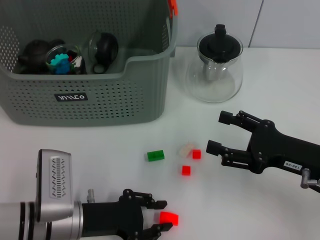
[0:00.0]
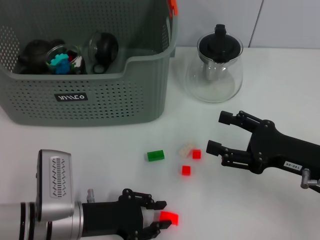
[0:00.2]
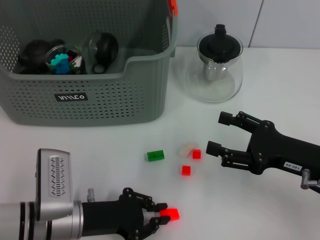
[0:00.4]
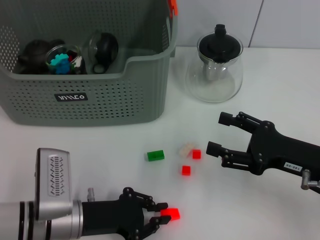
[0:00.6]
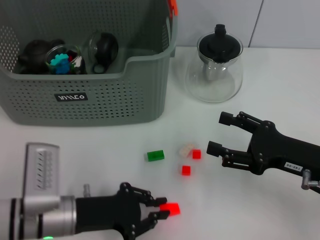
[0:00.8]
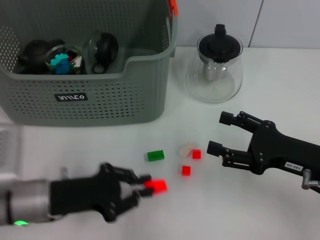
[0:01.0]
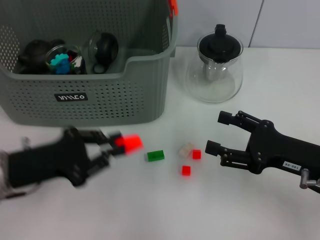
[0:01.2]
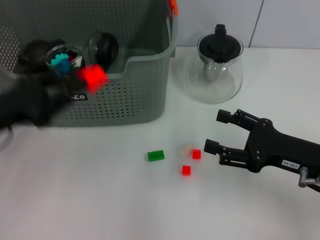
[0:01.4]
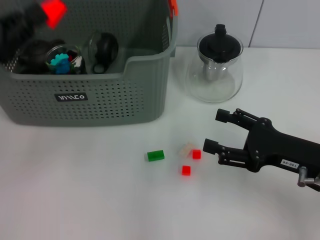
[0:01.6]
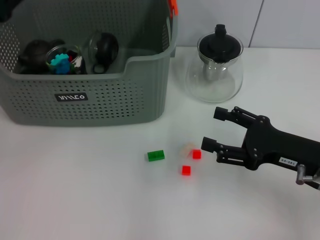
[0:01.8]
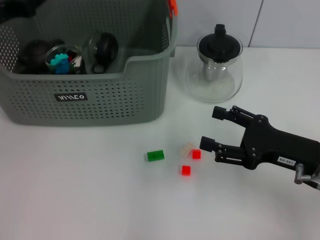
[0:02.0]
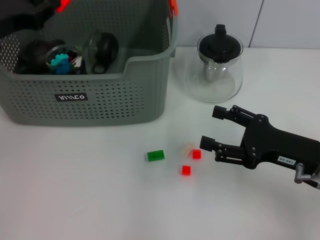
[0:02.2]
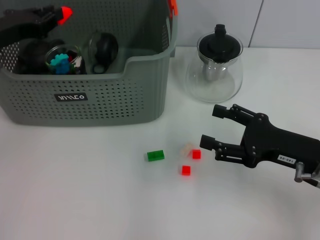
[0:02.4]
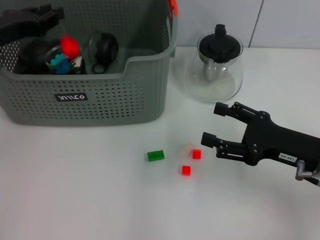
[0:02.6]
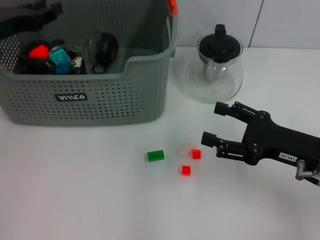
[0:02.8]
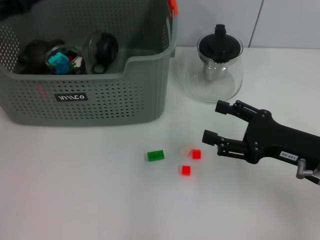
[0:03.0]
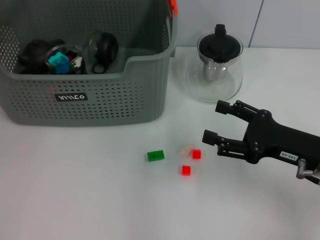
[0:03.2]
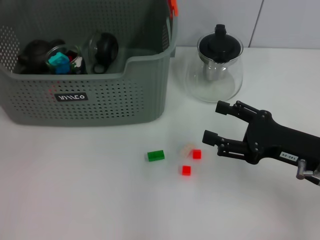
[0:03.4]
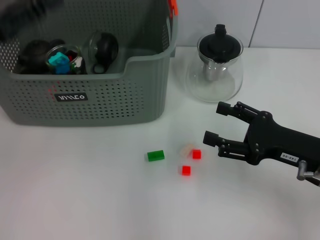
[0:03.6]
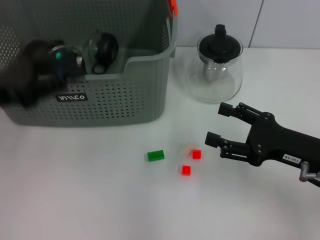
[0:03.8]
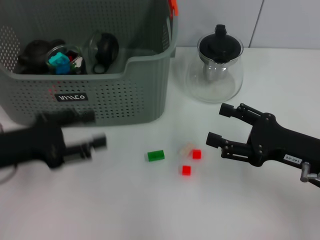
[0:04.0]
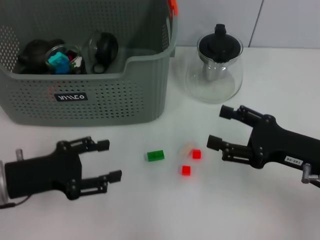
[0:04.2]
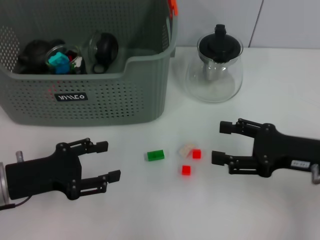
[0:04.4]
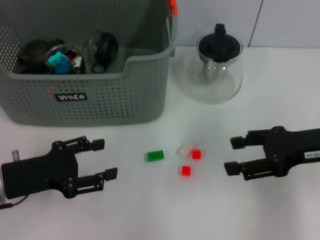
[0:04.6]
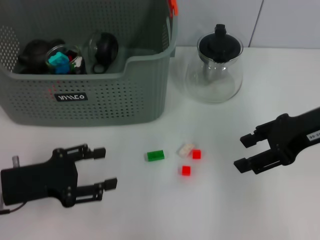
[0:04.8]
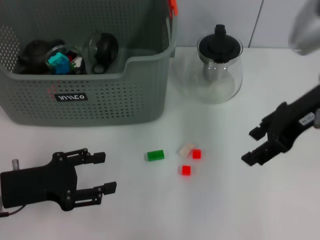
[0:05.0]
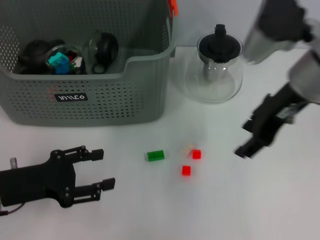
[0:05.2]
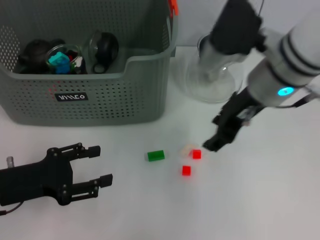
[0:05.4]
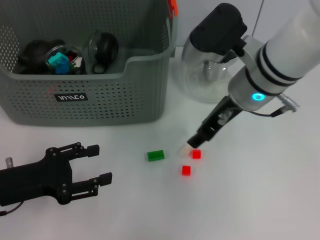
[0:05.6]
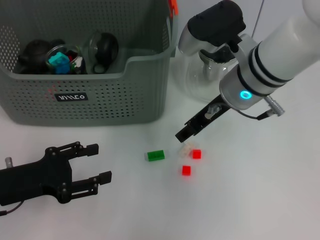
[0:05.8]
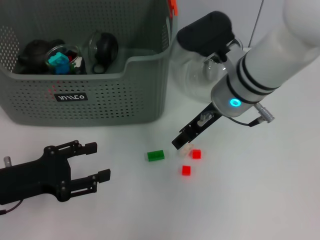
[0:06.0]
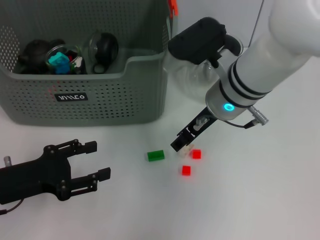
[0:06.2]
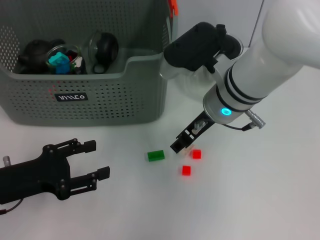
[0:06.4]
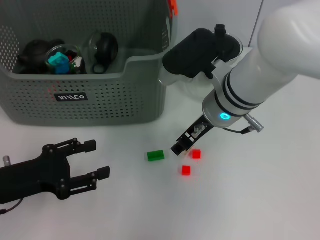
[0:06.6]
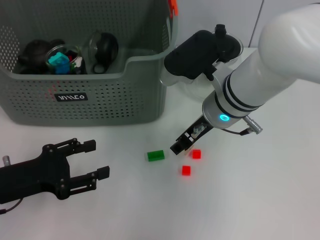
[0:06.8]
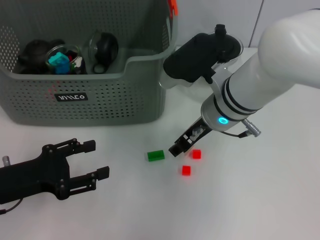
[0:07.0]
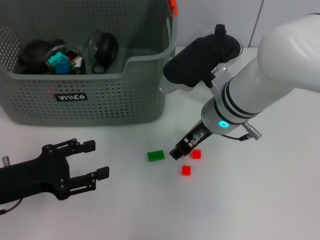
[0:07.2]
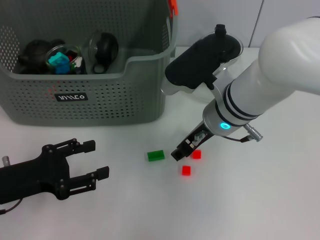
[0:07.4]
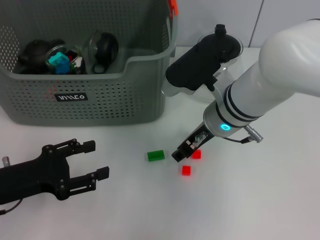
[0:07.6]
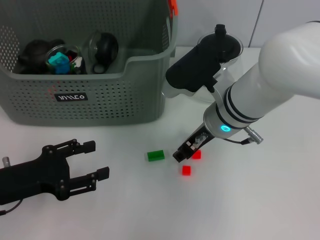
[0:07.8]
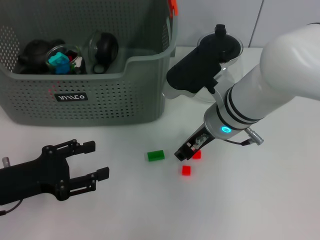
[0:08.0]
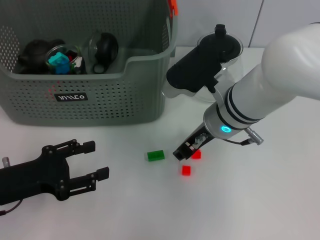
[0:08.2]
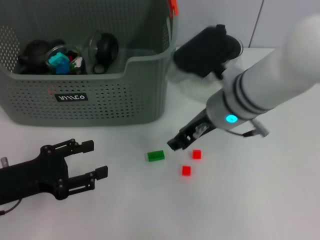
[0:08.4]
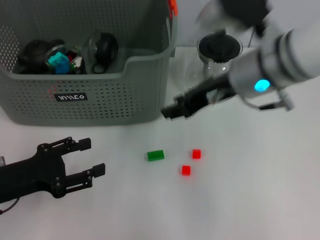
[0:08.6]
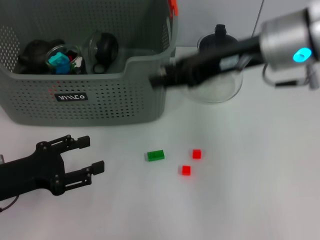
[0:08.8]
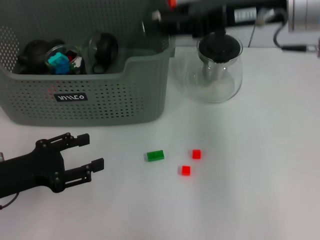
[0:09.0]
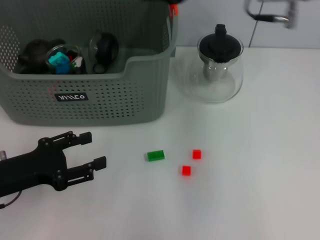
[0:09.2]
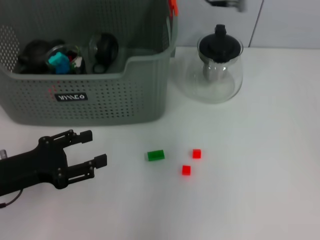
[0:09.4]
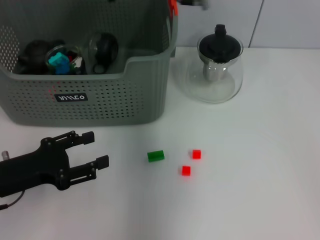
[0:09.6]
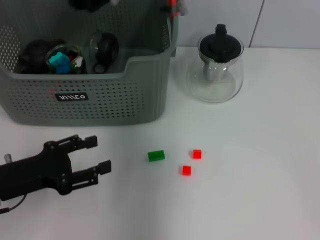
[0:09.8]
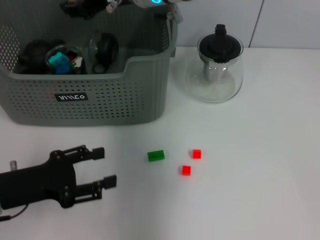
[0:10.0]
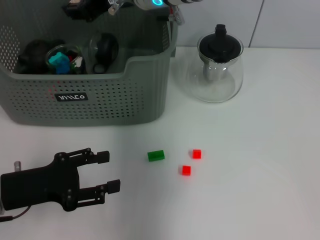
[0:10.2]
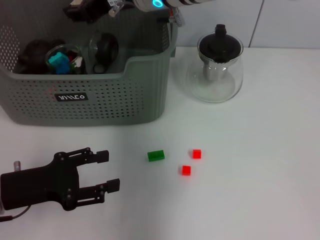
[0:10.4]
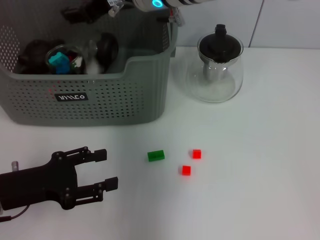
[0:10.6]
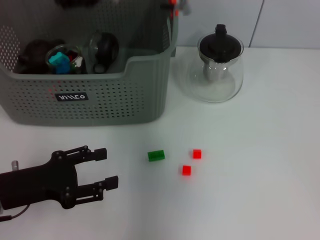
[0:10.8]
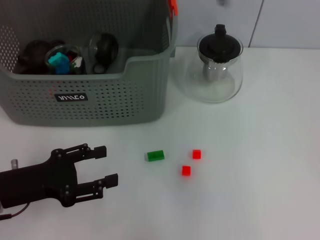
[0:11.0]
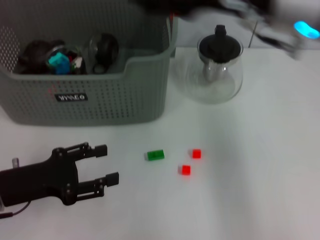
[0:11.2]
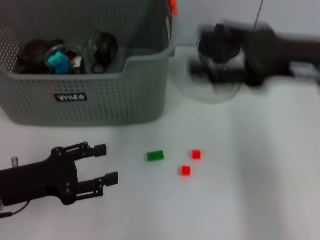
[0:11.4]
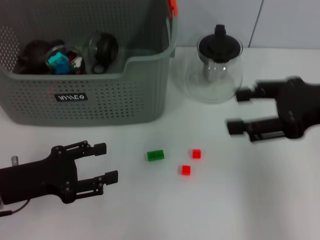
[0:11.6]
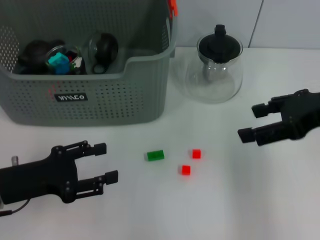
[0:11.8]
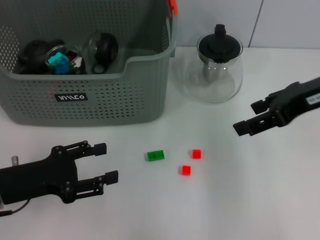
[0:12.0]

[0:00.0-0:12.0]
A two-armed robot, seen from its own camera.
Task of the whole recording: pick up the teacup on the table and place it into the storage bin, pick up the block on the table and place it into the storage bin.
Step, 0.8 to 2.8 s: Place the orange block in the storage box with left gripper.
Step, 3.2 to 8.2 s: Grasp the white block with right gripper.
Step, 8.4 to 11.2 s: Place the white block in the storage box with right gripper.
0.0 to 1.6 s: The left gripper is displaced upward, to the left and forward by roughly 20 cm.
1.6 to 3.0 s: The left gripper travels forward by approximately 10 cm, and opens up.
3.0 to 4.4 s: The left gripper travels backward and downward by roughly 15 cm, and opens up.
4.4 to 6.0 s: The right gripper is displaced to the left and forward by roughly 20 cm.
6.0 to 7.6 s: The grippers stay close to where they were, moving slightly.
7.6 to 9.0 s: The right gripper heads upward and to the right, covering some 20 cm.
9.0 to 10.4 s: The right gripper heads to the left and forward, covering some 20 cm.
10.4 to 12.0 s: The right gripper shifts roughly 25 cm to the right and backward.

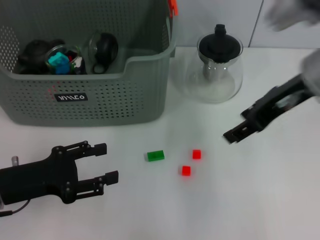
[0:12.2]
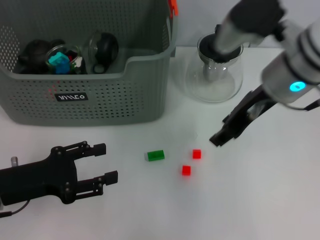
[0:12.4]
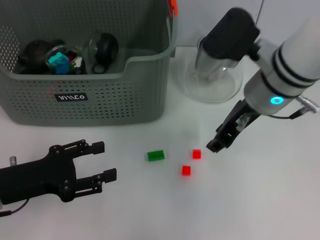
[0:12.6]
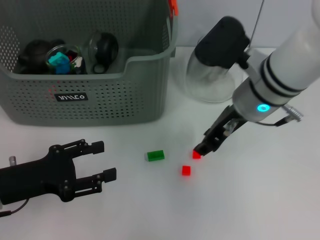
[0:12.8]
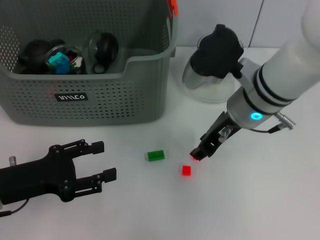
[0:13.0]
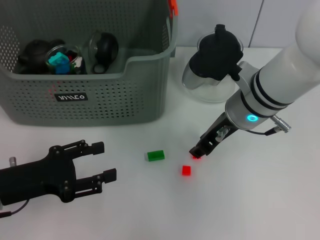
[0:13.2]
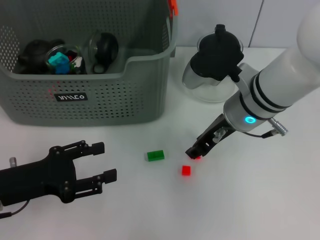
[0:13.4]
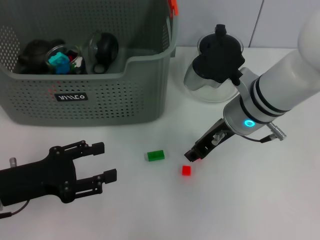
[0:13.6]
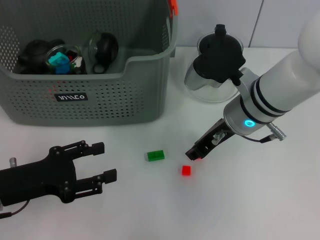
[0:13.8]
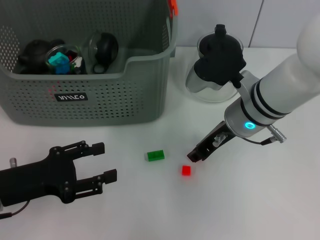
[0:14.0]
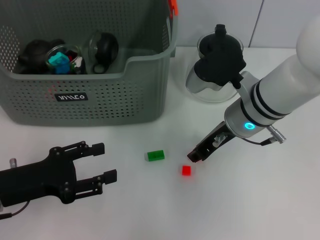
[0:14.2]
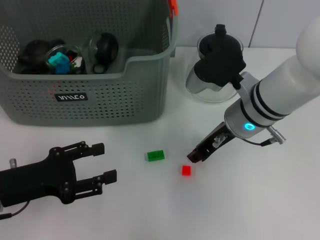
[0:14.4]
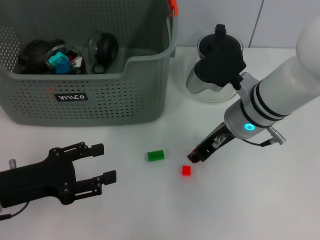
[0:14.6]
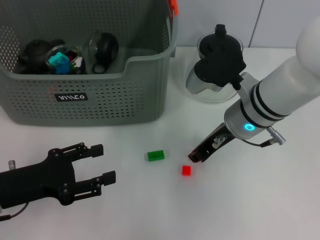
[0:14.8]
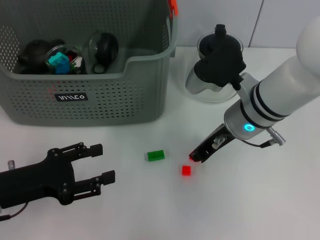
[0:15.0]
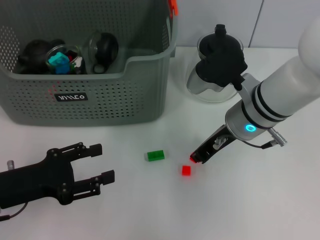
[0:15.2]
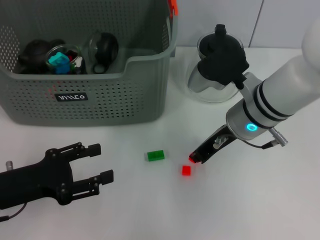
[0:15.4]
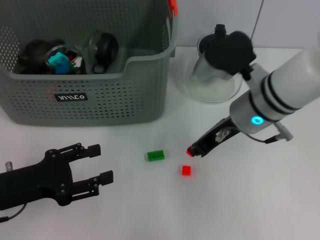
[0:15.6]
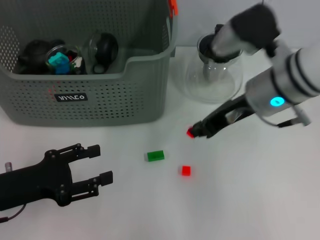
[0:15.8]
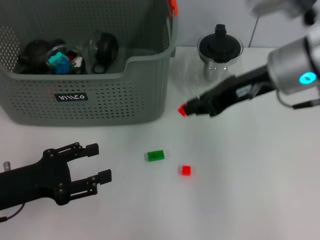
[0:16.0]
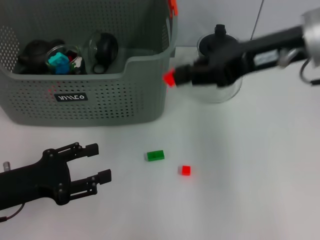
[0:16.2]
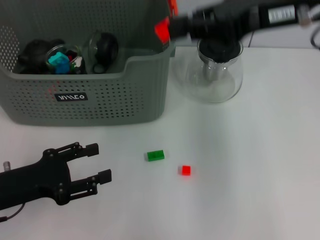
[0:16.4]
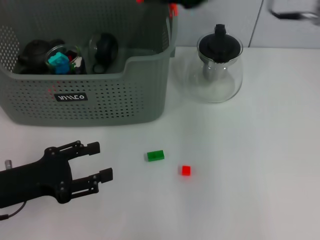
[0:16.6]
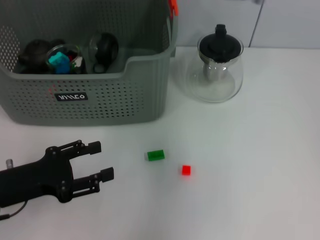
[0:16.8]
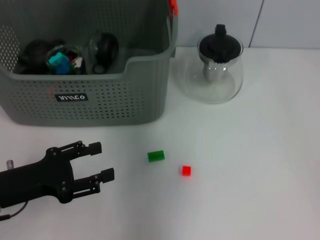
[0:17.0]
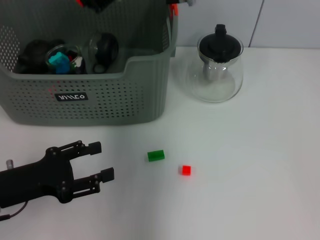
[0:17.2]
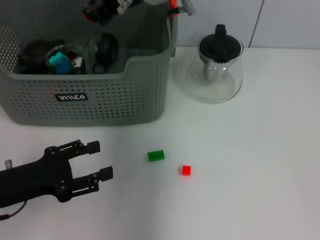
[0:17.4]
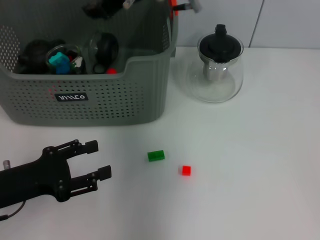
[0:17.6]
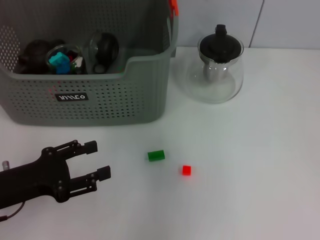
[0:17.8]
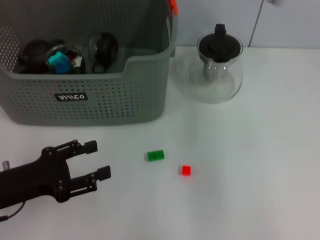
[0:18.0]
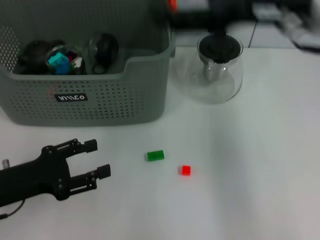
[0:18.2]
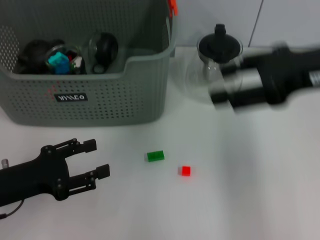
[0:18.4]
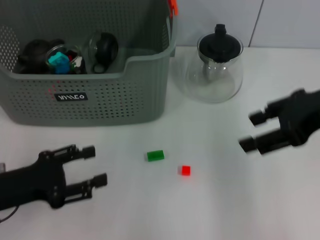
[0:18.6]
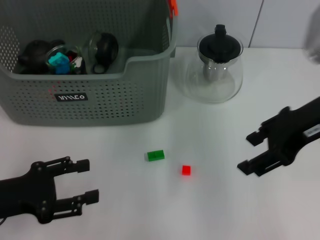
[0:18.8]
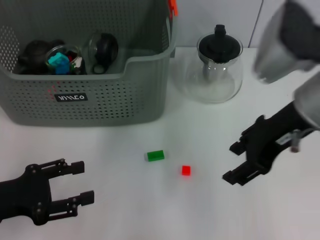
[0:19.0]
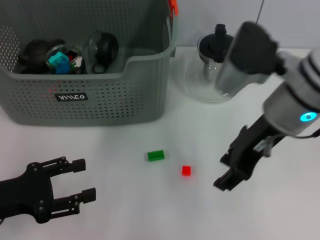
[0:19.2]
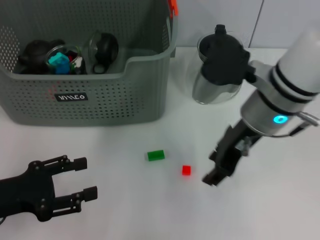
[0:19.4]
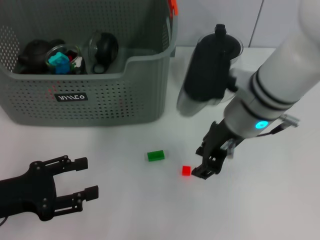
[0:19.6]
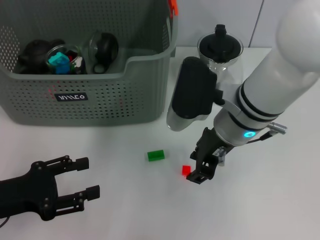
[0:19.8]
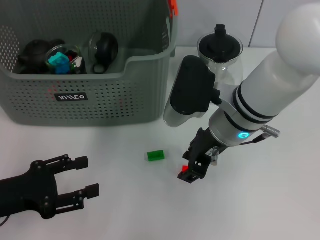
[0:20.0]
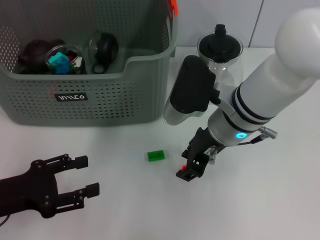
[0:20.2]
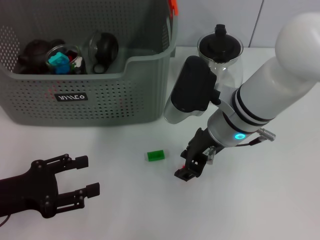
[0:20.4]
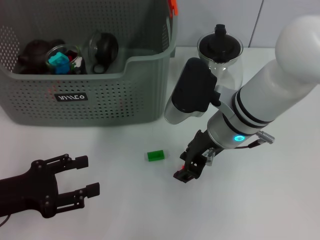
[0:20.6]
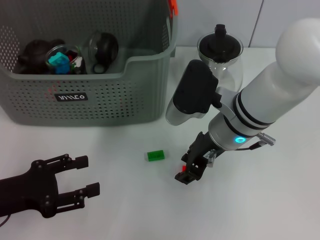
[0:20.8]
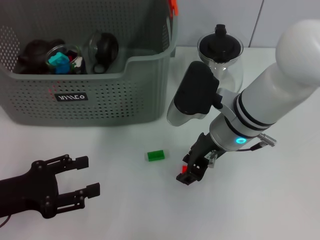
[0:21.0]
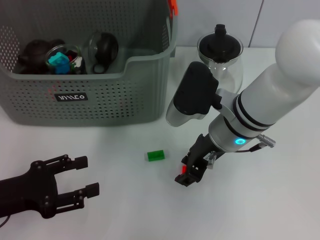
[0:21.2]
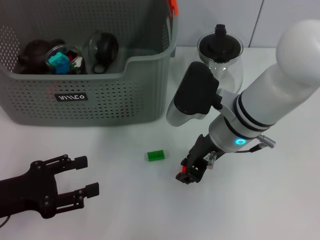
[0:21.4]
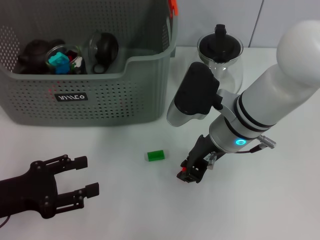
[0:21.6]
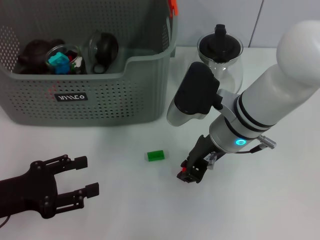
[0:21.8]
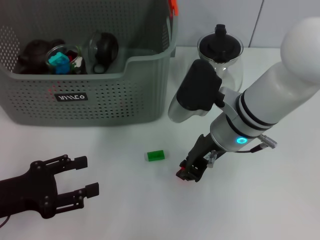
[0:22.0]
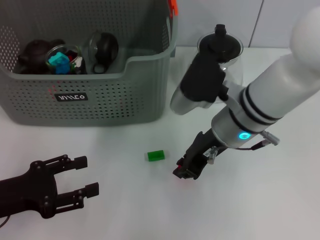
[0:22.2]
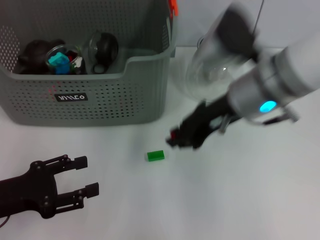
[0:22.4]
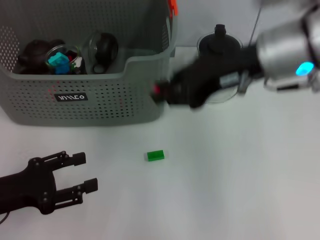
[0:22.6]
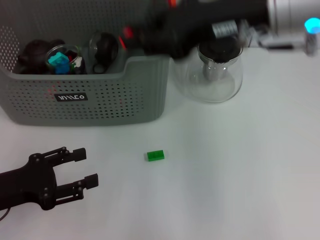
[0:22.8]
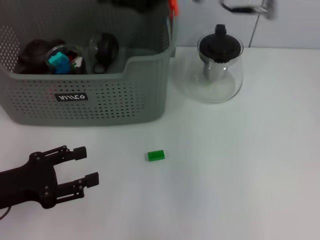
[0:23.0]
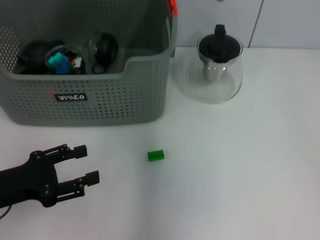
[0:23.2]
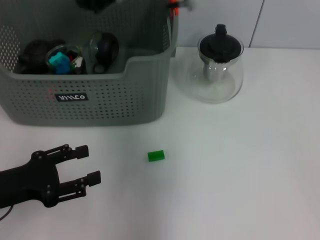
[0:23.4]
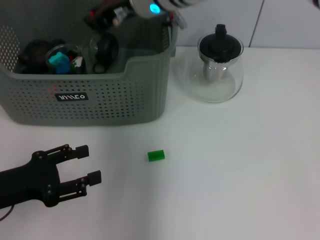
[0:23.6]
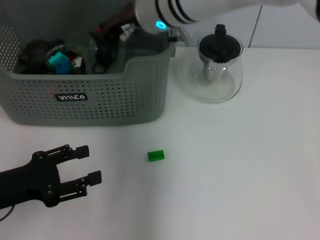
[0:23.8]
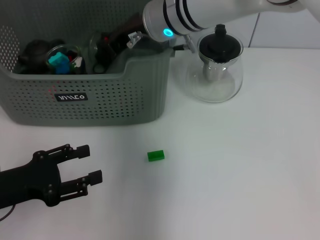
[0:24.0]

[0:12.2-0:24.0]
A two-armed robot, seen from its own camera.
Task of the whole recording: pick up the teacup on the table and place it into the storage bin, pick up the block on the table and place it into the storage bin.
Step, 12.2 to 14.4 s: Grasp the orange block with right gripper.
Step, 14.6 to 17.8 s: Place the orange block in the storage box with right gripper.
Step, 18.0 to 21.4 s: Grasp the orange block with right gripper.
12.2 to 13.6 s: The right gripper is displaced downward and to the left by approximately 10 cm, and closes up.
13.6 to 15.2 s: The right gripper closes its fingers.
15.2 to 16.6 s: The right gripper shifts roughly 20 cm upward.
16.6 to 18.2 s: The right gripper travels to the left and back again, about 15 cm each way, and opens its fingers.
18.2 to 19.6 s: The right gripper travels downward and to the left by about 15 cm.
19.6 to 21.0 s: There are only small adjustments of the grippers.
21.0 to 22.6 s: The right gripper travels upward by approximately 15 cm, and closes its fingers.
22.6 to 24.0 s: The right gripper shifts some 15 cm to the left and forward.
